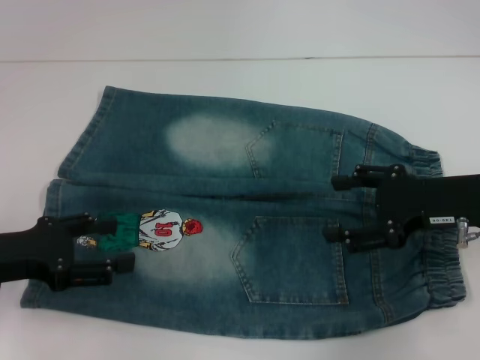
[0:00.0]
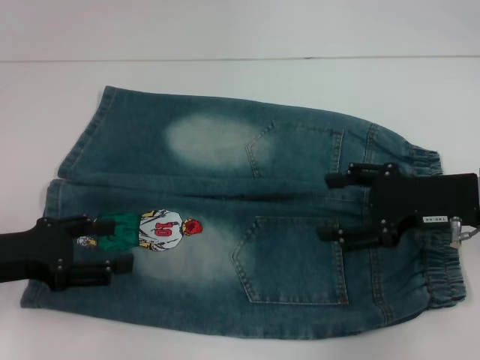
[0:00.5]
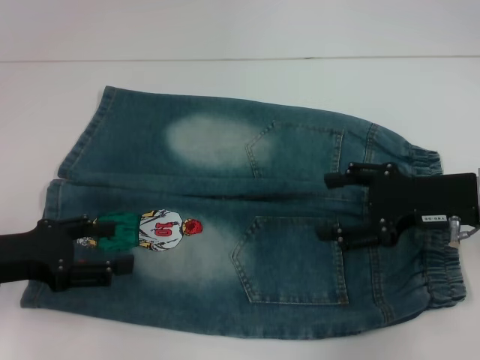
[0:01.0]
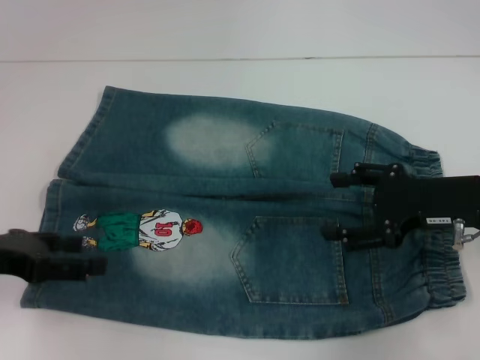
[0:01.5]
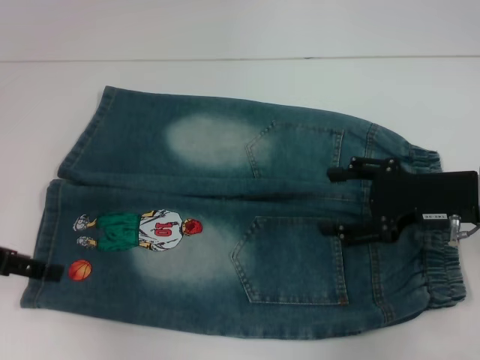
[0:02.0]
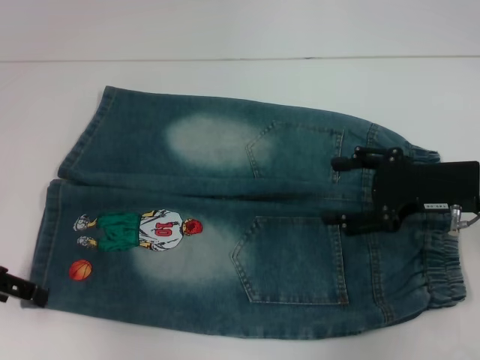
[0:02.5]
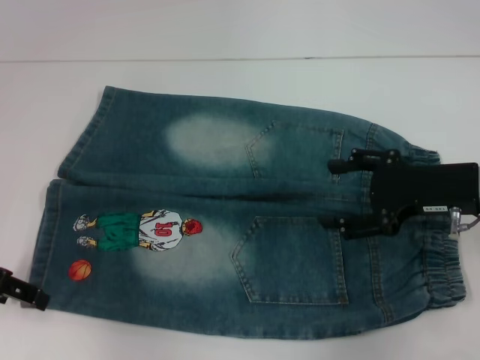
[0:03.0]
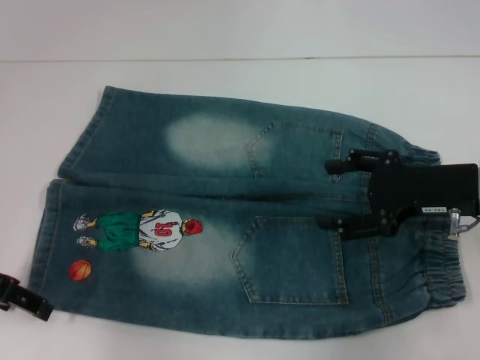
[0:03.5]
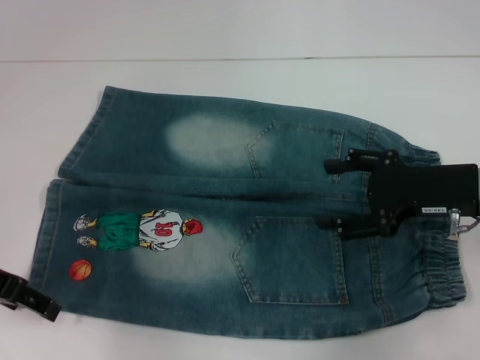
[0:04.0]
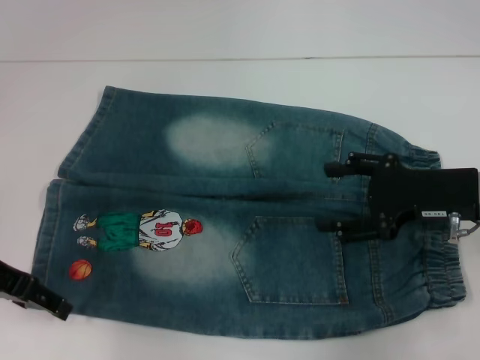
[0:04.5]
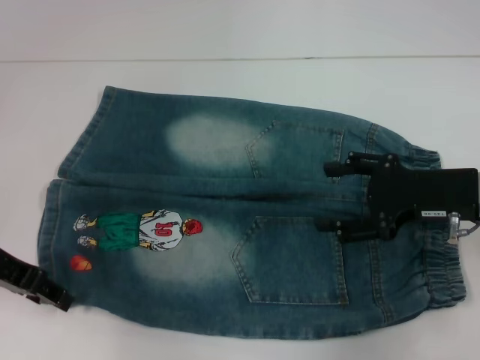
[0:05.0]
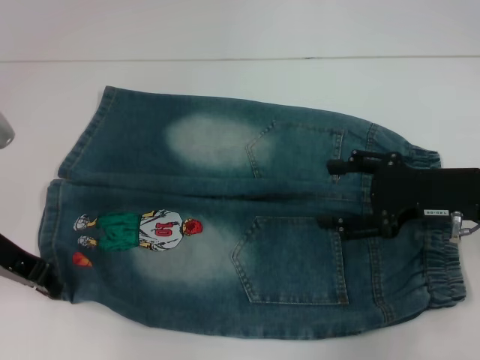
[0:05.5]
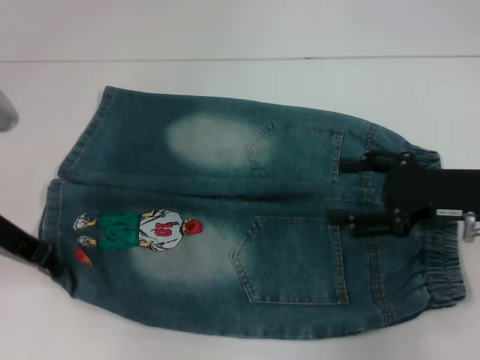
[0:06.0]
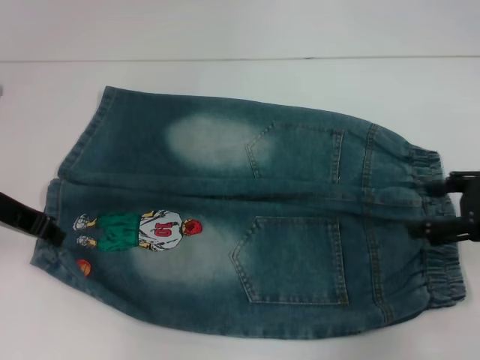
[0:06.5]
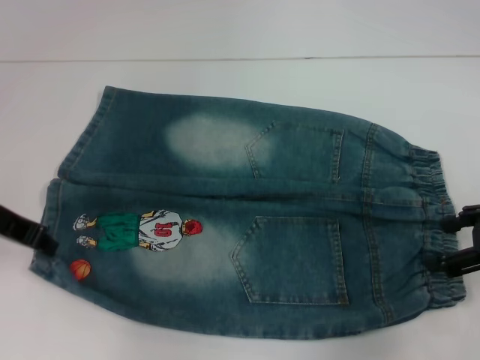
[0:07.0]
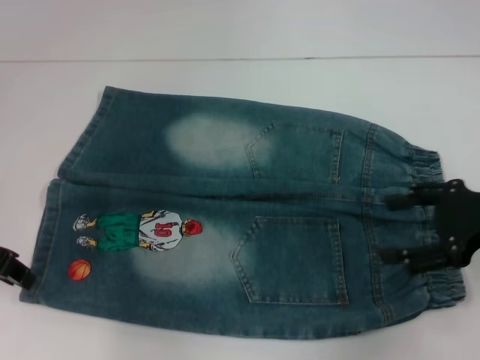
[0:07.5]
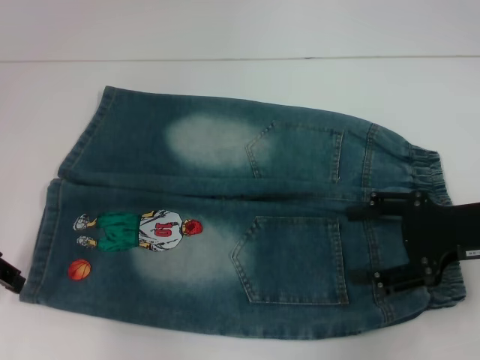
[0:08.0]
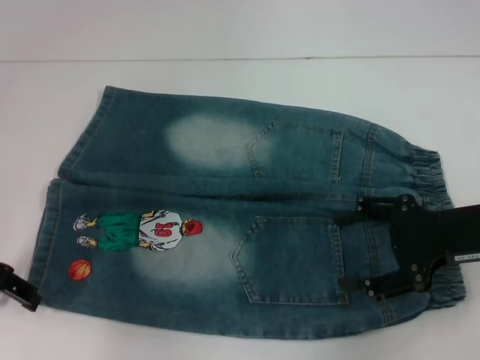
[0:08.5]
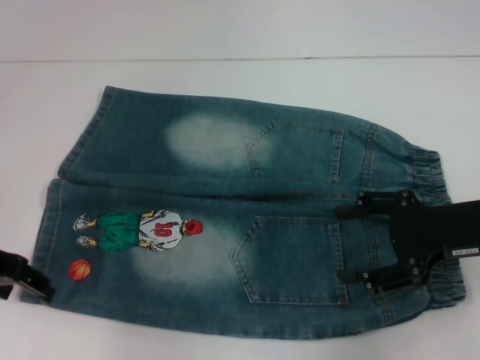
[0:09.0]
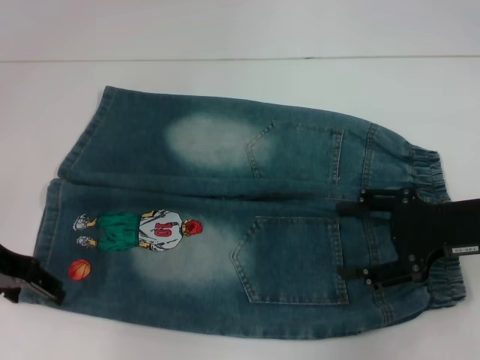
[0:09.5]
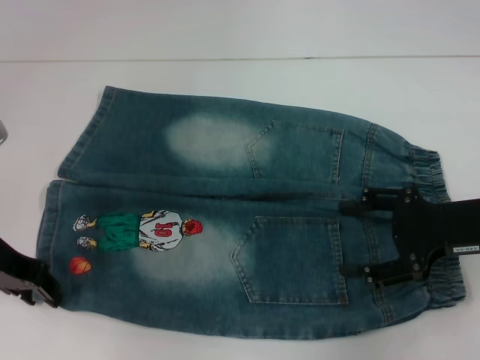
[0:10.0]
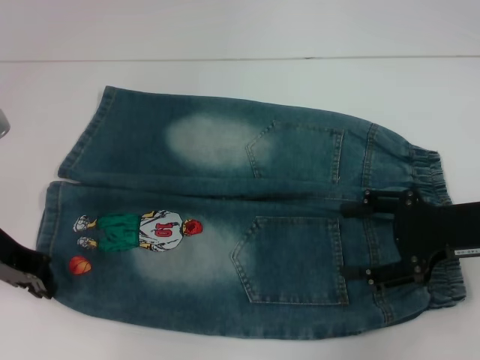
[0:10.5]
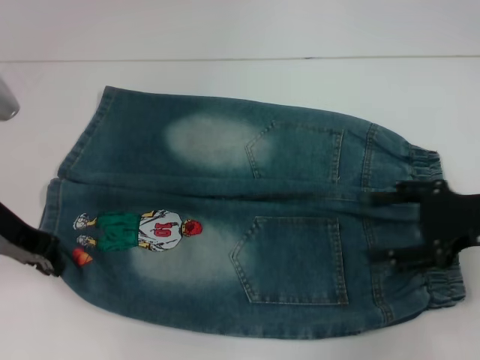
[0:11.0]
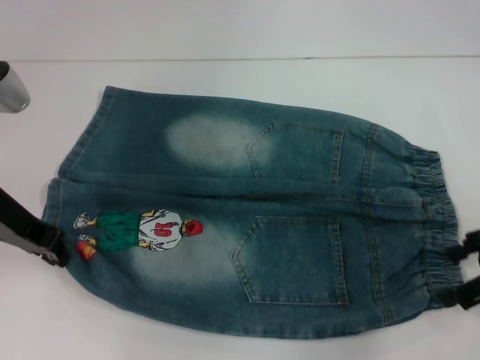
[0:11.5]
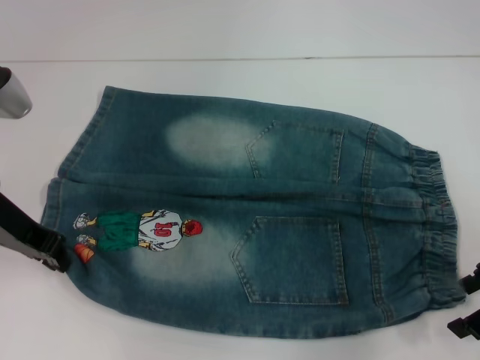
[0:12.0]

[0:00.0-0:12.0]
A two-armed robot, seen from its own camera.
Step, 0:00.0 to 0:10.0: Grab the lower left pant leg with your left hand.
0:00.0 to 0:02.0: The left gripper ends up about 5 cm from where it was.
0:02.0 to 0:04.0: The grippers stay close to where they were, moving slightly.
0:04.0 to 0:06.0: The left gripper closes up.
0:06.0 to 0:08.0: The left gripper changes place by approximately 5 cm, and opens its fingers.
0:08.0 to 0:10.0: The grippers make only small movements.
0:10.0 to 0:12.0: The left gripper closes its fingers.

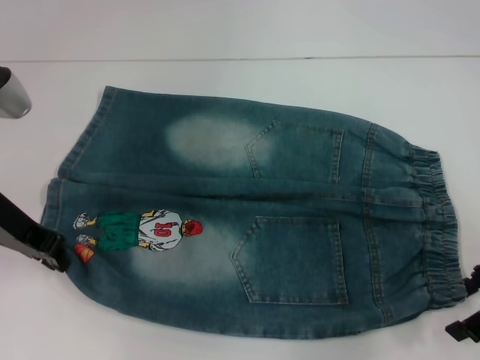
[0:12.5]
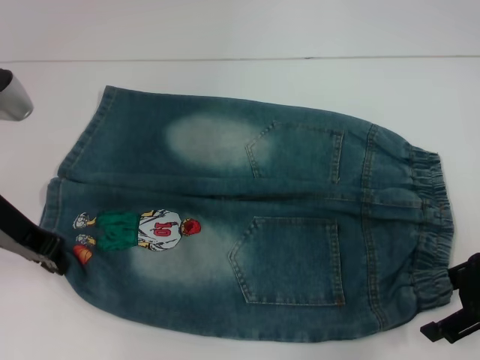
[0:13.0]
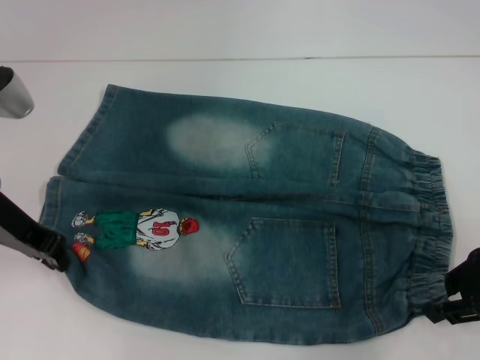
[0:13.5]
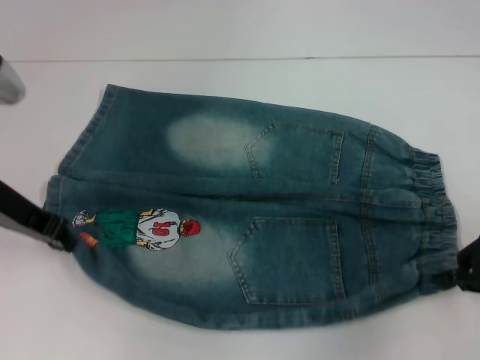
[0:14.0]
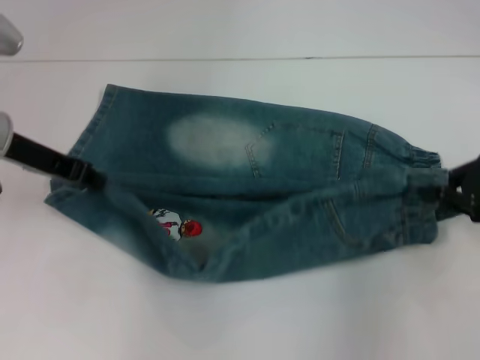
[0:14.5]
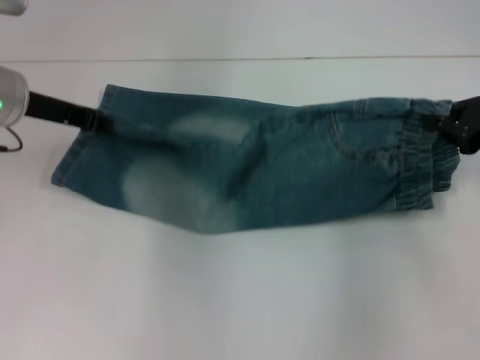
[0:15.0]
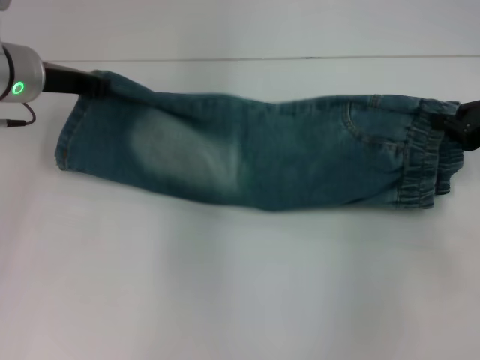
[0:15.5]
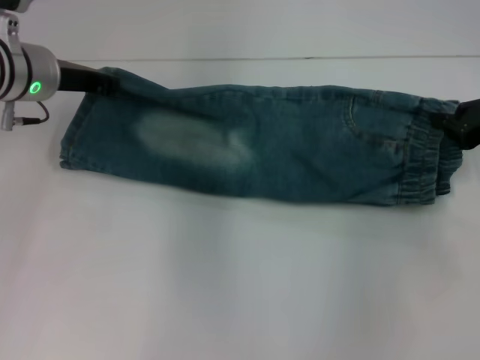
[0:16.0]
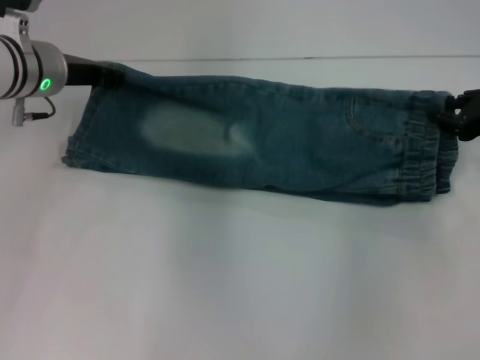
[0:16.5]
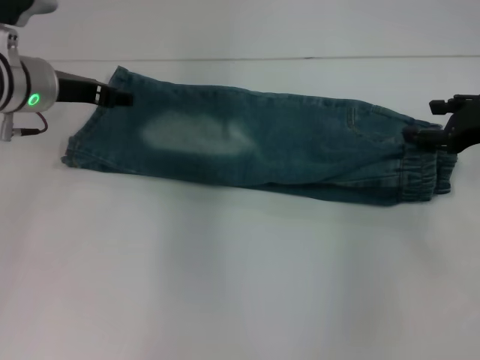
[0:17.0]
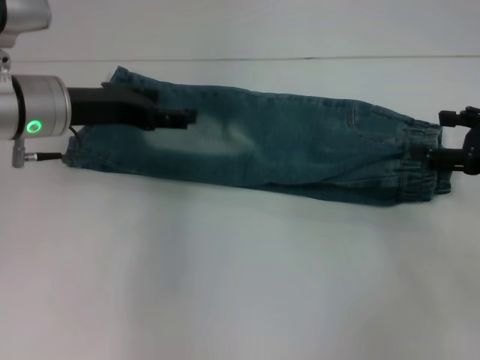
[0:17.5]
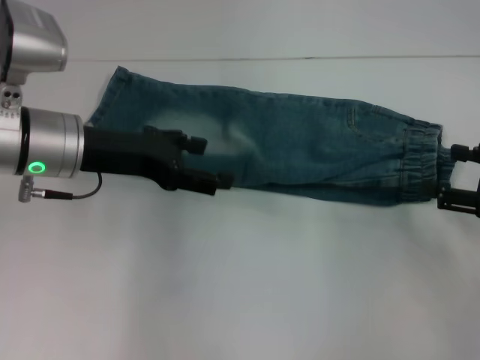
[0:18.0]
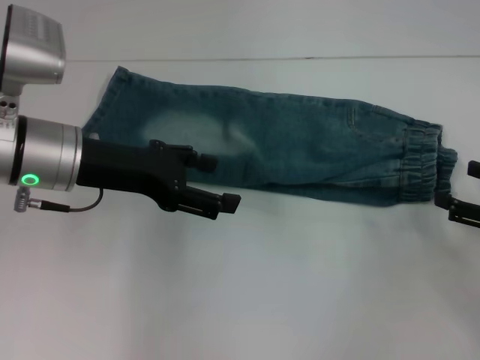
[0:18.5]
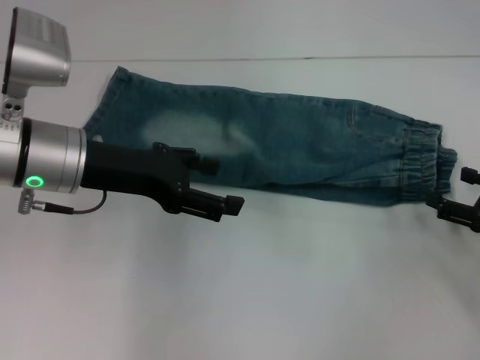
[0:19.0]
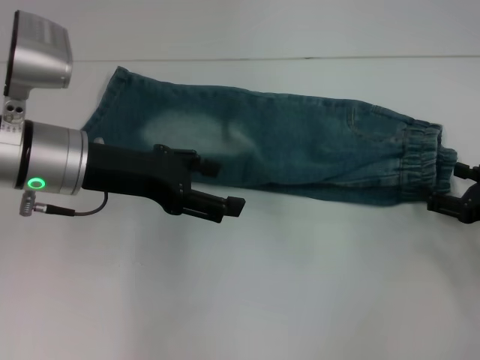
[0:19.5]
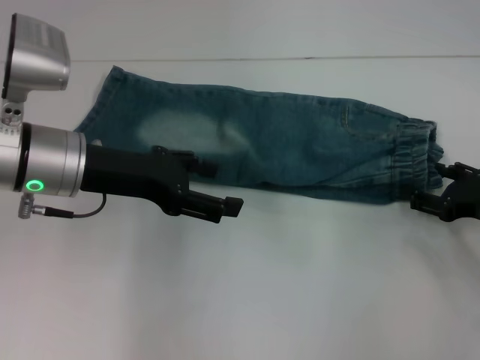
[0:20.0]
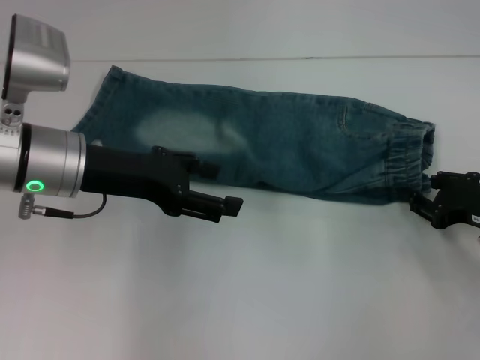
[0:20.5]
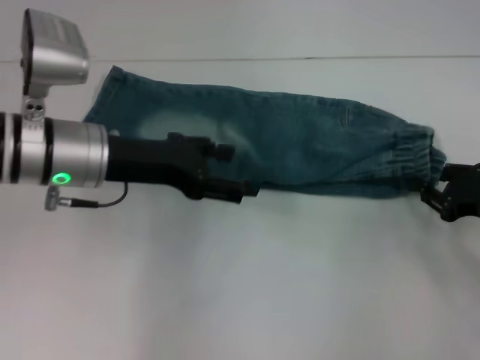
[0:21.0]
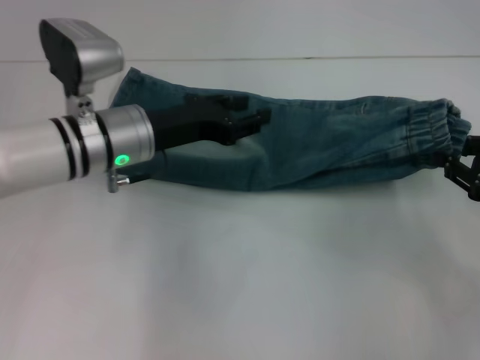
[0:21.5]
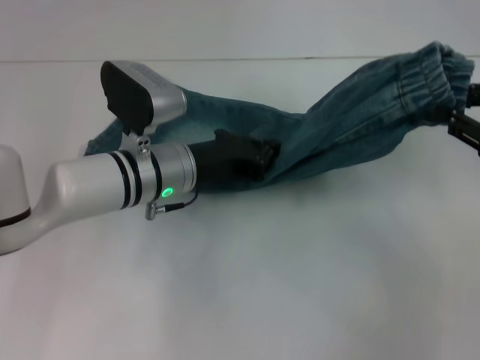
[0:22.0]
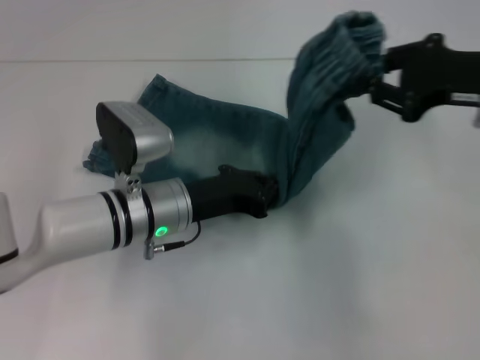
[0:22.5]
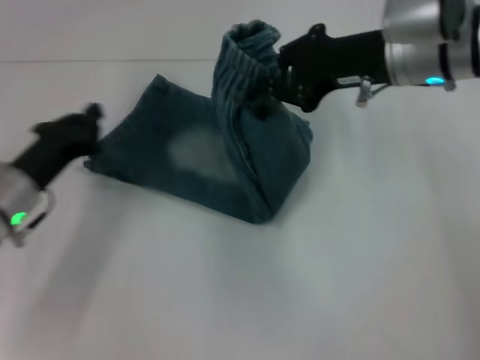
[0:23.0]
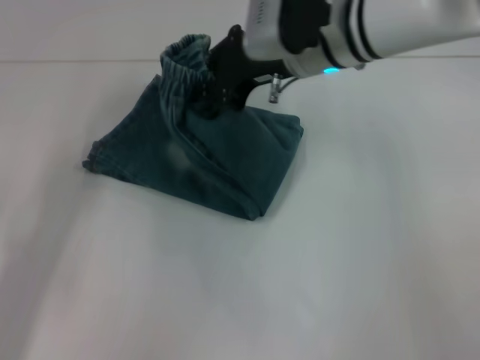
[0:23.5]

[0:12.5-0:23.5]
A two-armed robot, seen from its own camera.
Step, 0:14.0 to 0:16.5: Fold upward with your right hand.
Step, 0:17.0 to 0:20.5: Grab the waistband with your right hand.
Step, 0:21.0 to 0:22.5: Press the middle of the pants with your left hand.
0:12.5 to 0:14.5: The right gripper closes up.
0:14.5 to 0:16.0: The grippers both shift forward by roughly 5 cm.
0:16.0 to 0:18.0: Both grippers travel together backward, some 10 cm. The left gripper opens up. The right gripper opens up.
0:18.0 to 0:20.0: The right gripper is displaced downward by some 5 cm.
0:20.0 to 0:21.5: The left gripper ends up some 5 cm from where it was, and closes. Meanwhile the right gripper goes roughly 5 cm upward, and closes its fingers.
0:21.5 to 0:23.5: The right gripper heads to the left and forward, covering about 30 cm. The left gripper shifts roughly 25 cm to the left and backward, and closes.

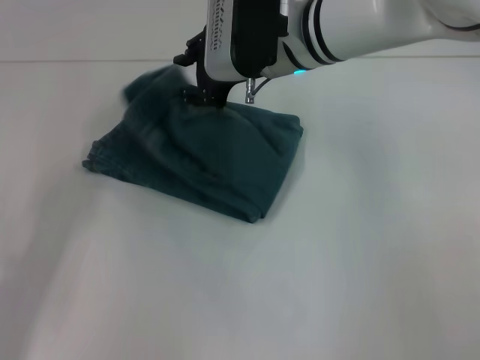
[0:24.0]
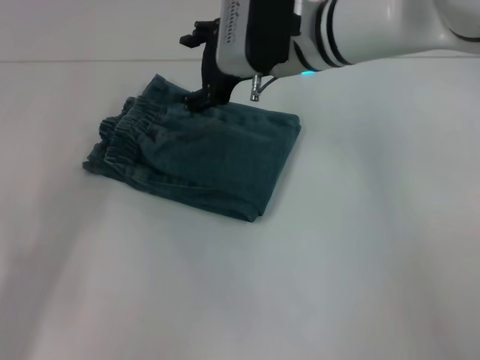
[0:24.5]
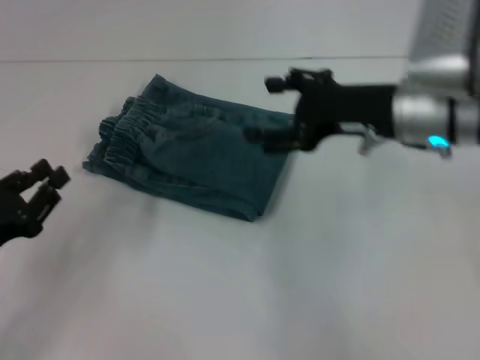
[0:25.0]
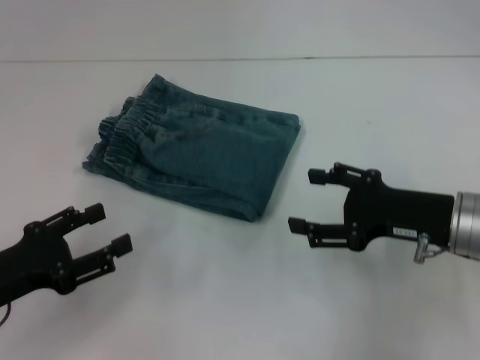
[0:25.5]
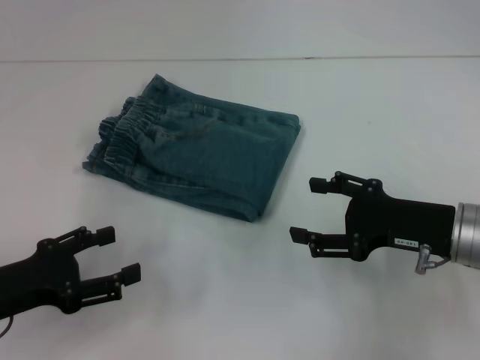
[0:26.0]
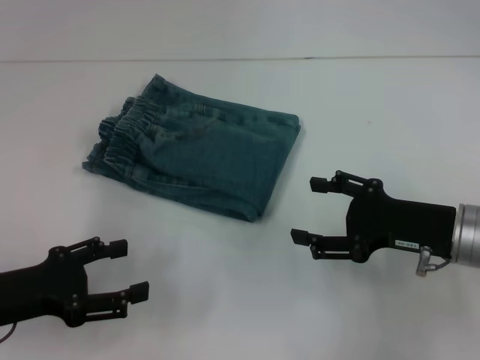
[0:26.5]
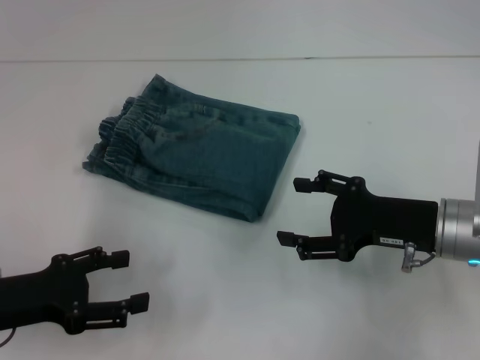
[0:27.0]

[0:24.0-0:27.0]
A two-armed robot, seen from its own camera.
0:24.0 to 0:25.5: The left gripper opens up; the right gripper goes approximately 25 cm to the right, backward and downward, and opens up.
0:25.5 to 0:27.0: The grippers stay close to where they were, moving slightly.
